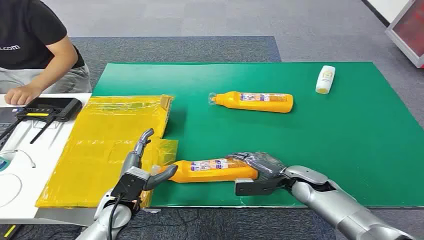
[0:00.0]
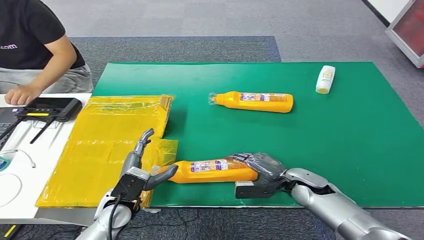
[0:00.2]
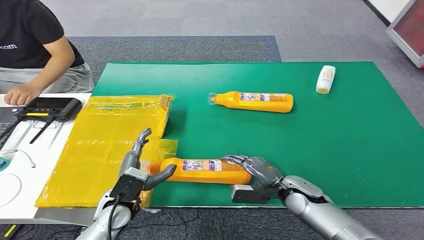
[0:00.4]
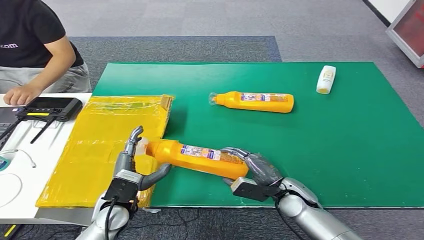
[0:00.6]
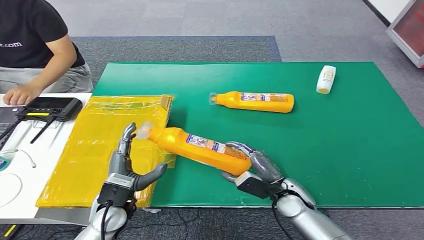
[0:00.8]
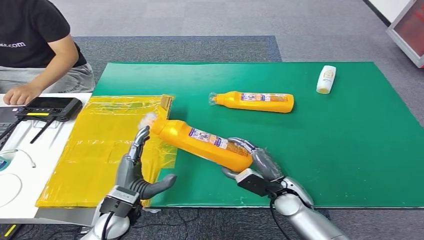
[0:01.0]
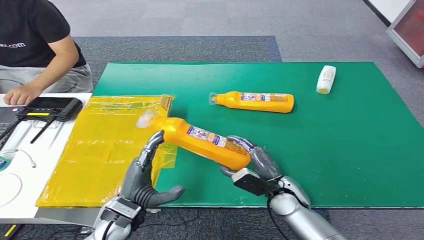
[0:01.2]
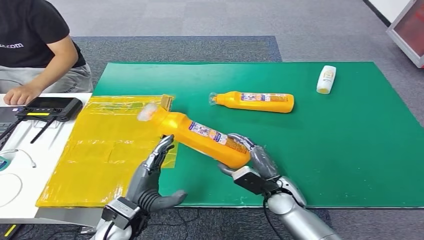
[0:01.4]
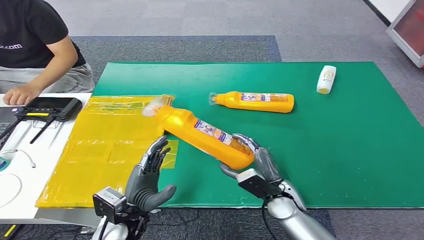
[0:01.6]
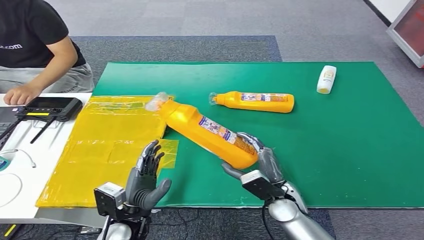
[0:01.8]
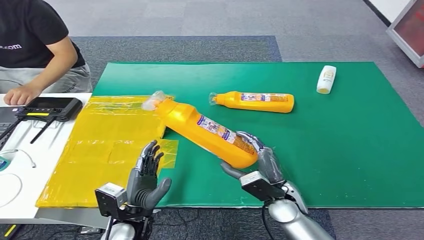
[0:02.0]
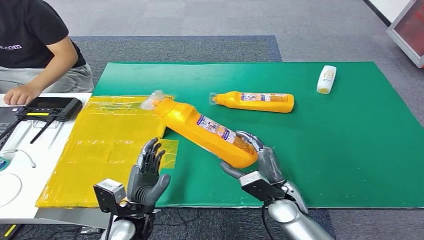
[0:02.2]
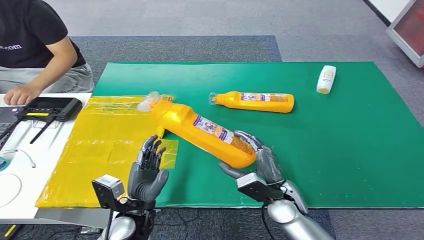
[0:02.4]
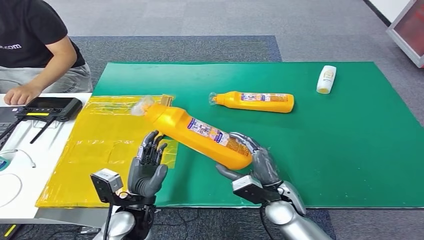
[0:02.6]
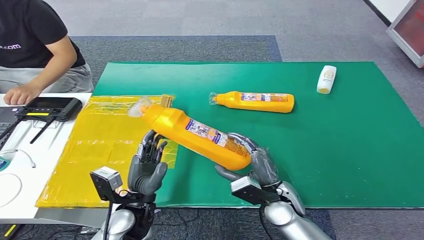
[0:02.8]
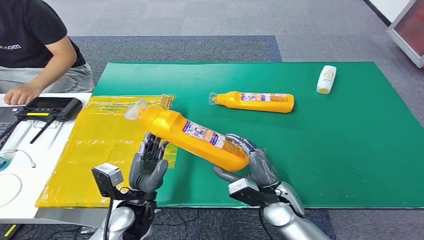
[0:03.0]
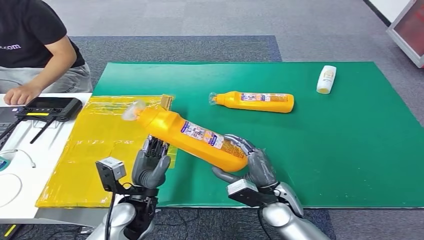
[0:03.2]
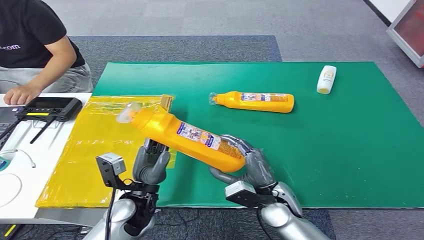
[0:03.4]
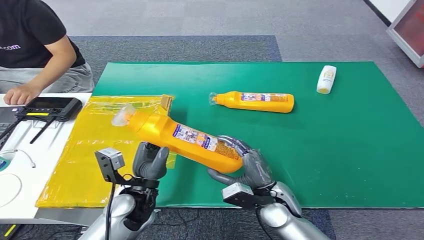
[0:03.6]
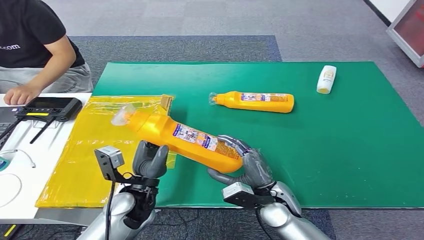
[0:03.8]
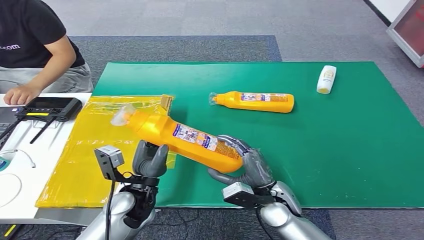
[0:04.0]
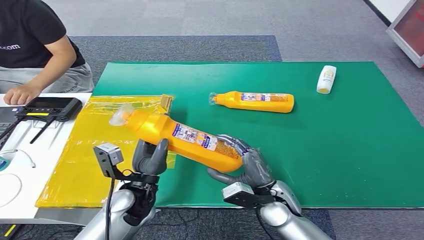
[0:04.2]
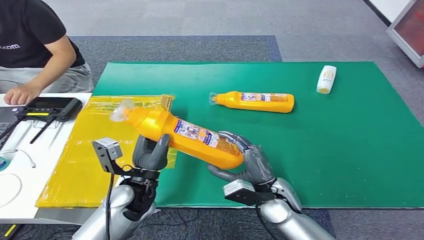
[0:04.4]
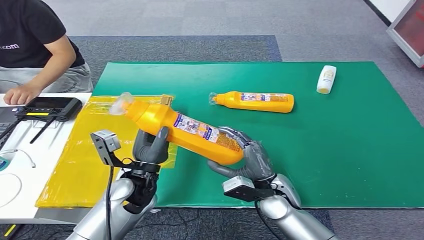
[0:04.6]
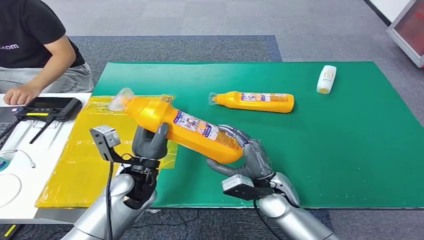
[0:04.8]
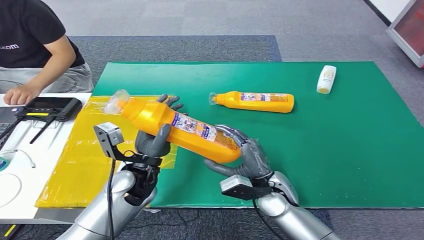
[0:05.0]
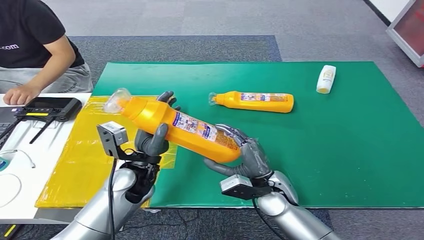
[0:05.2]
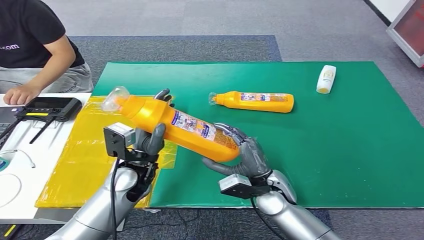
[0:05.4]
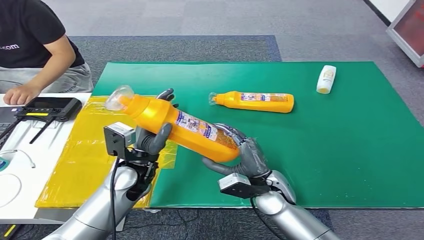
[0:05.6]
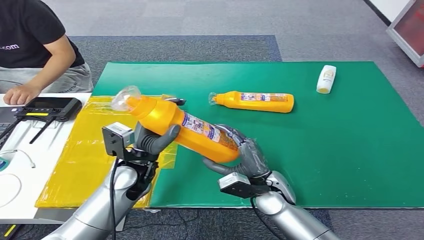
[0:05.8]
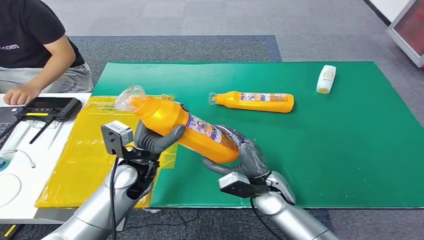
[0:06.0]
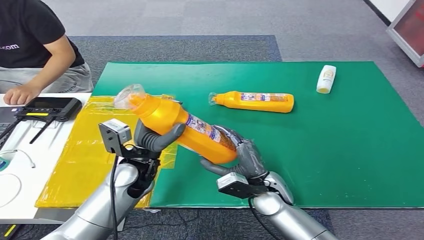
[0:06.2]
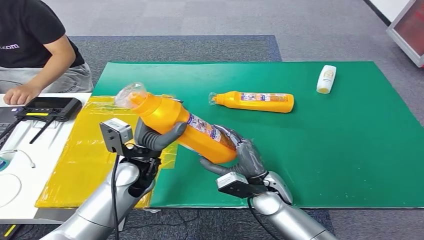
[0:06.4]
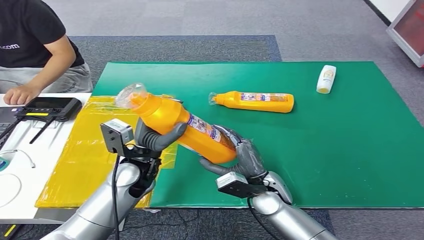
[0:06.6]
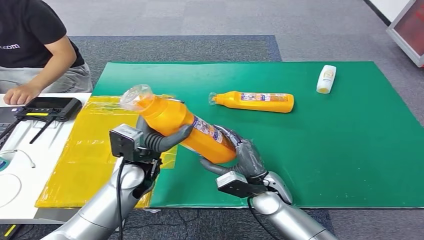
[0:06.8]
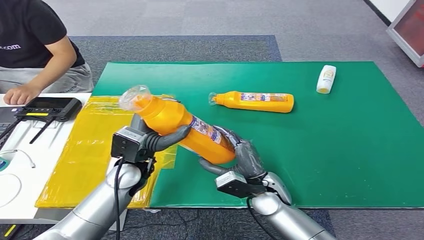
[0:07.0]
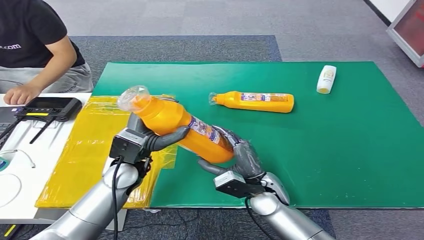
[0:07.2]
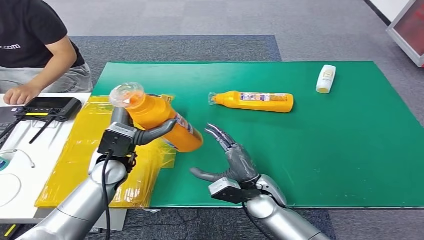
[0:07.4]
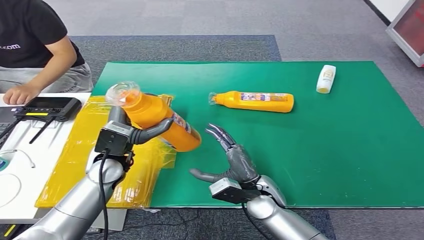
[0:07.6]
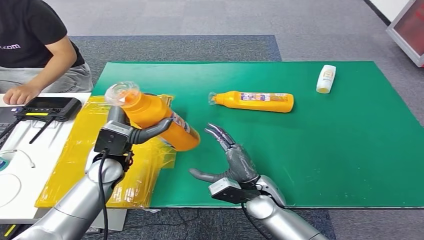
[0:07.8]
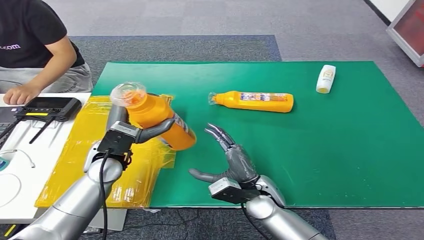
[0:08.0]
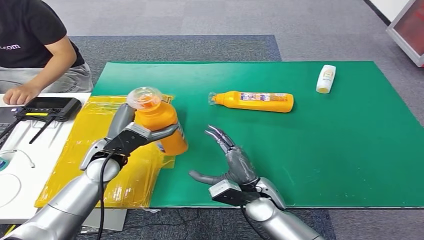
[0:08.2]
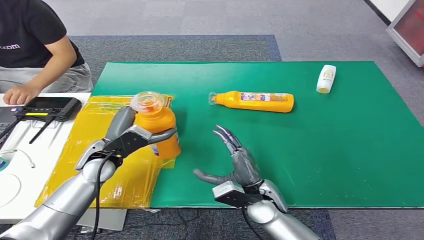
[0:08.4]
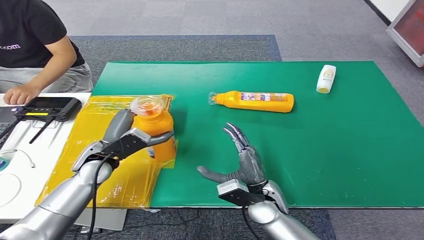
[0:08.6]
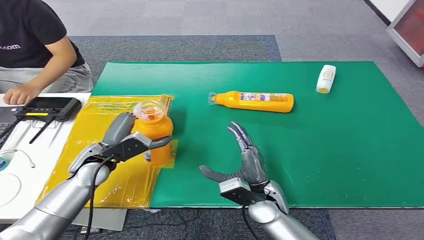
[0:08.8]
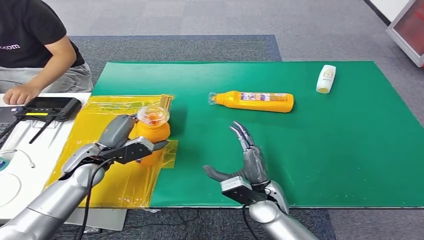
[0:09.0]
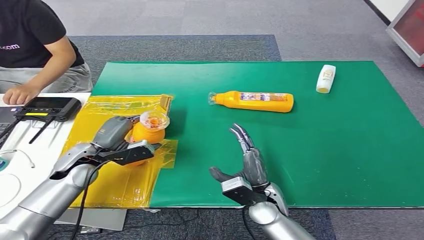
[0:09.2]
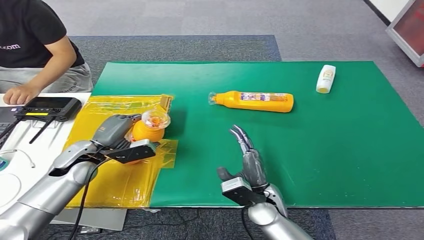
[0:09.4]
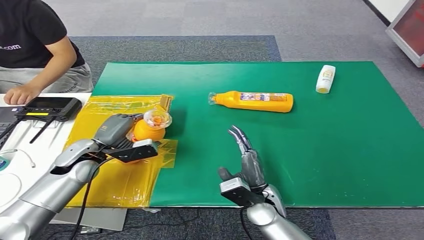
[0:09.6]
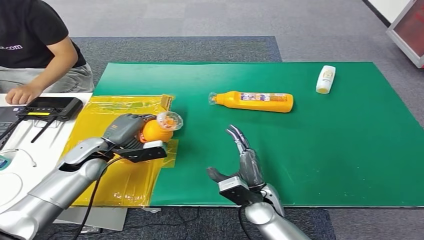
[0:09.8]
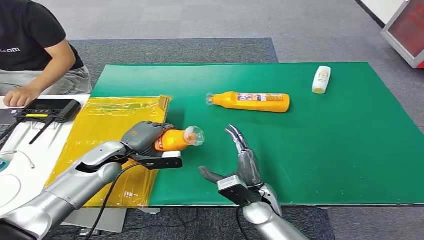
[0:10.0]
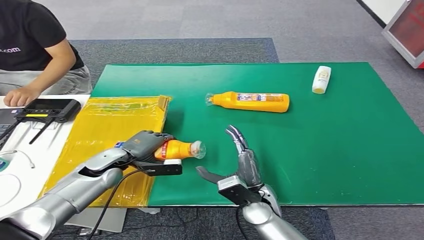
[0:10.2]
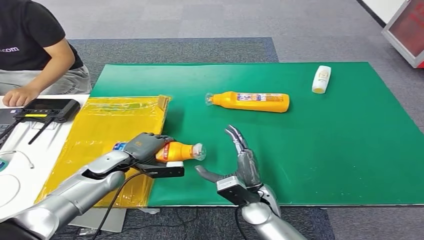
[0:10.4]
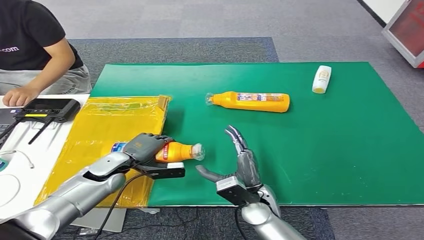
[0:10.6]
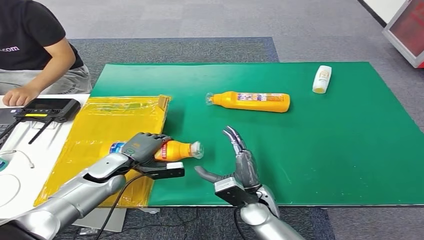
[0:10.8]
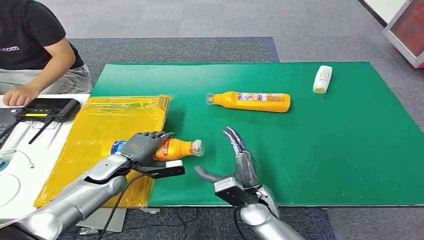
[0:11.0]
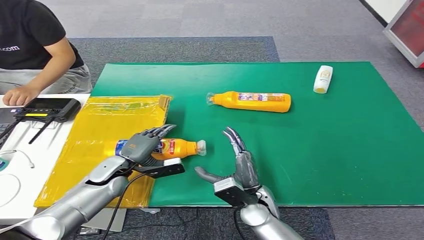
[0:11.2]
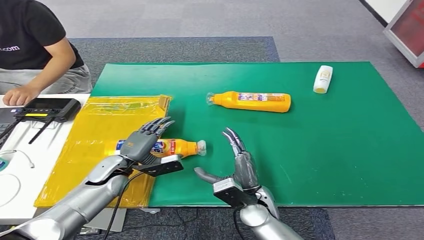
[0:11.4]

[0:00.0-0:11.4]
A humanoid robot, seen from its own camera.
Step, 0:00.0 to 0:01.6: Pick up the bottle from the table.
Step, 0:02.0 to 0:11.4: Turn the bottle to the front side.
0:02.8 to 0:04.2: The hands move only a little.
0:04.2 to 0:05.6: The left hand travels forward by approximately 5 cm.
0:07.2 to 0:08.6: The left hand moves to the left, approximately 5 cm.
0:10.0 to 0:11.4: The left hand moves approximately 5 cm.

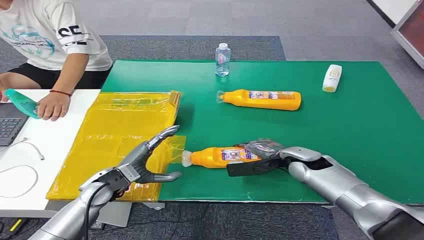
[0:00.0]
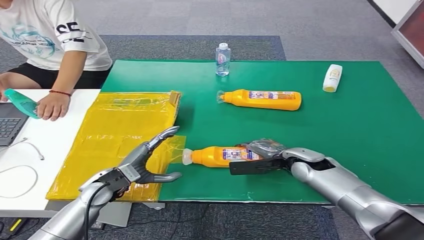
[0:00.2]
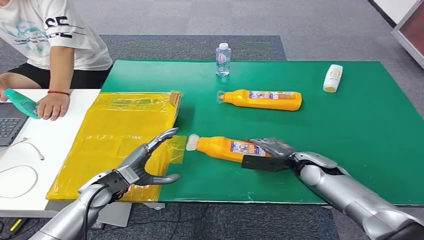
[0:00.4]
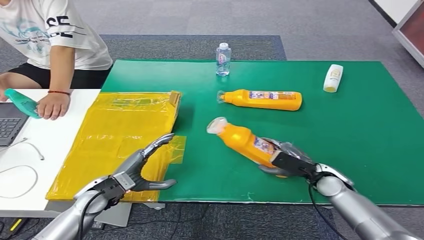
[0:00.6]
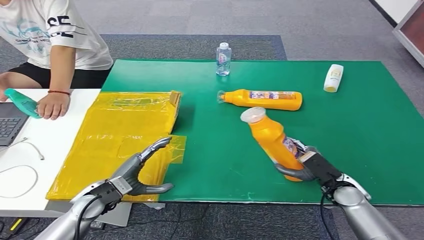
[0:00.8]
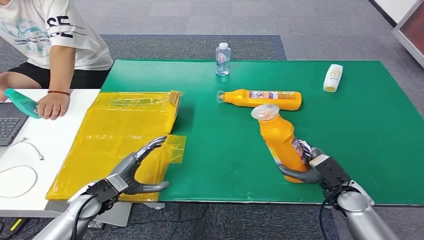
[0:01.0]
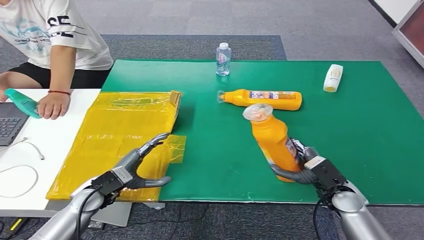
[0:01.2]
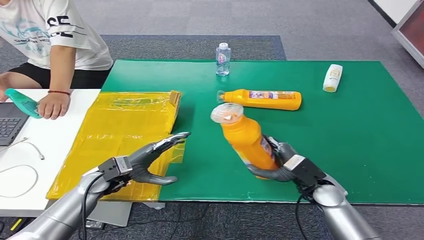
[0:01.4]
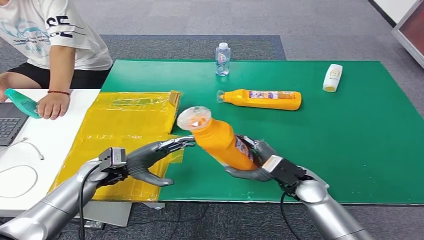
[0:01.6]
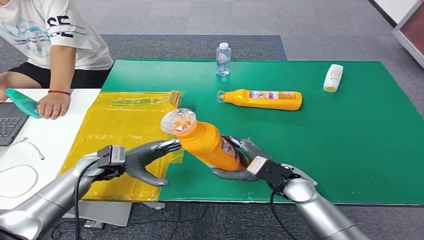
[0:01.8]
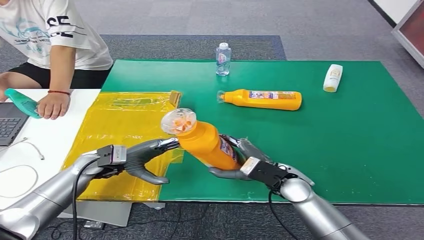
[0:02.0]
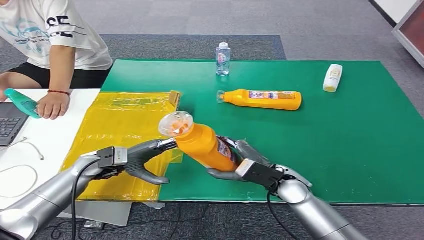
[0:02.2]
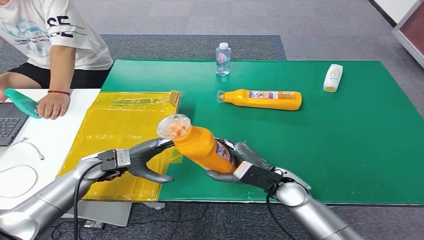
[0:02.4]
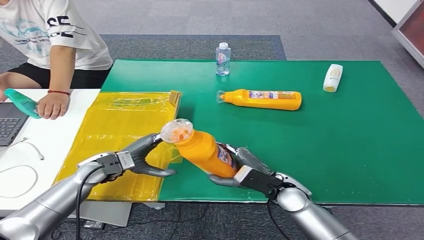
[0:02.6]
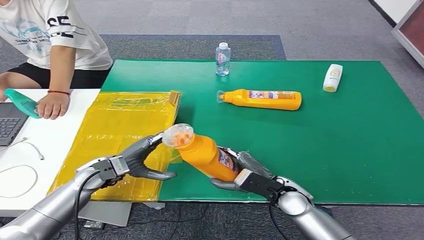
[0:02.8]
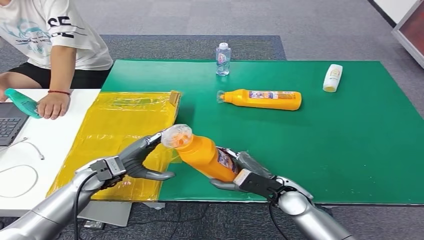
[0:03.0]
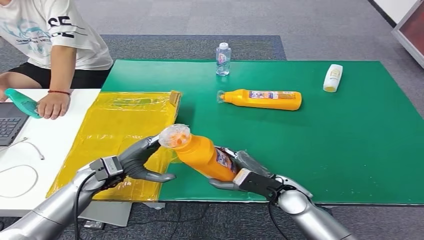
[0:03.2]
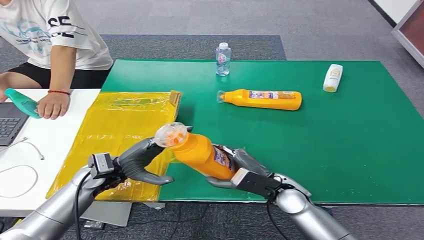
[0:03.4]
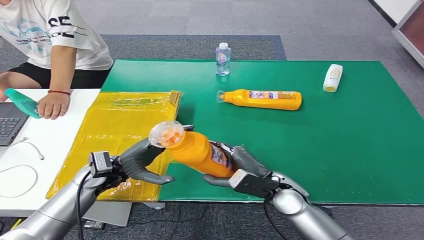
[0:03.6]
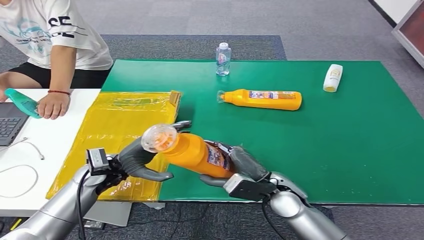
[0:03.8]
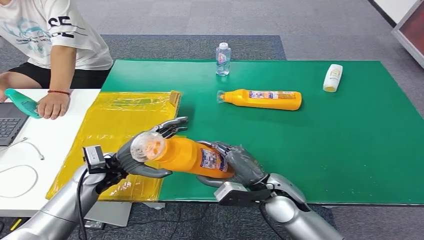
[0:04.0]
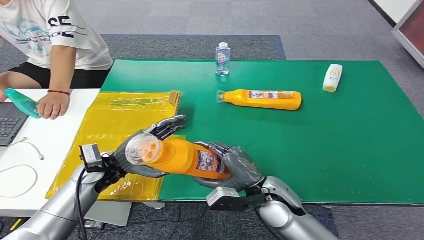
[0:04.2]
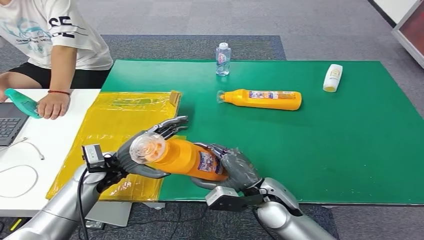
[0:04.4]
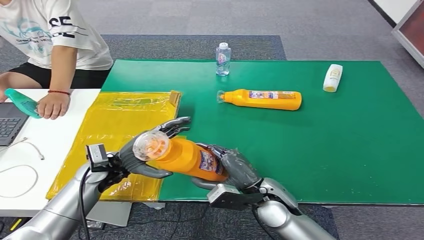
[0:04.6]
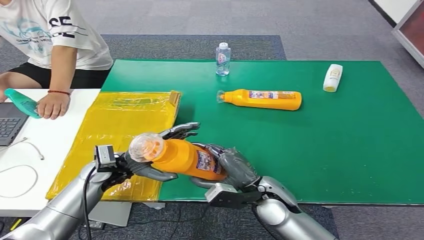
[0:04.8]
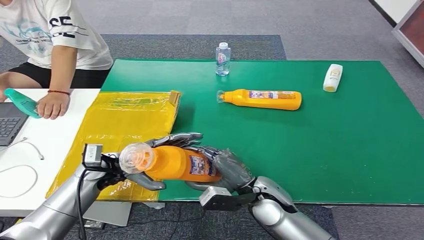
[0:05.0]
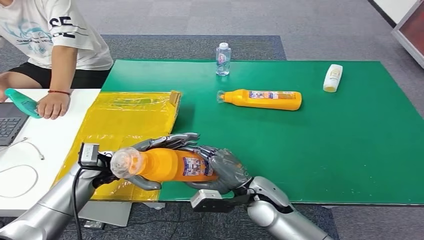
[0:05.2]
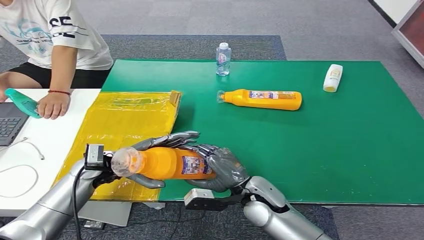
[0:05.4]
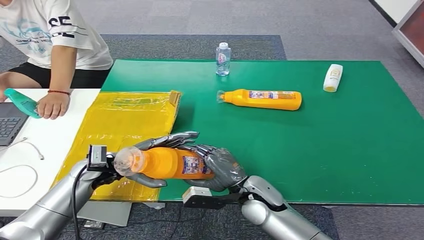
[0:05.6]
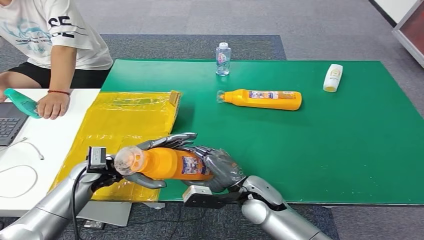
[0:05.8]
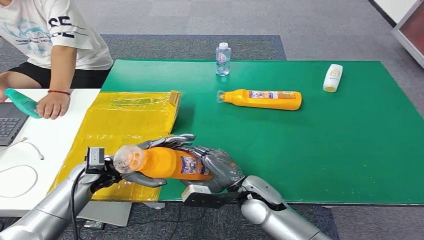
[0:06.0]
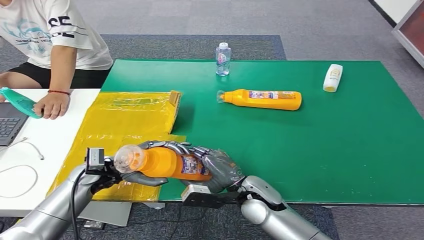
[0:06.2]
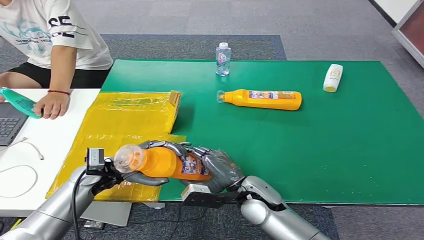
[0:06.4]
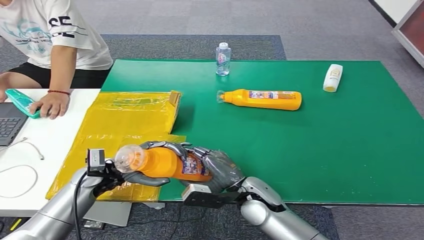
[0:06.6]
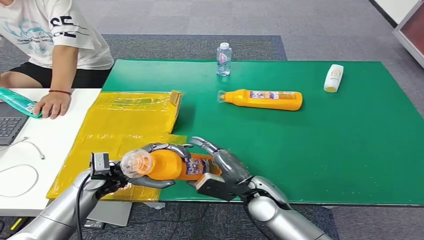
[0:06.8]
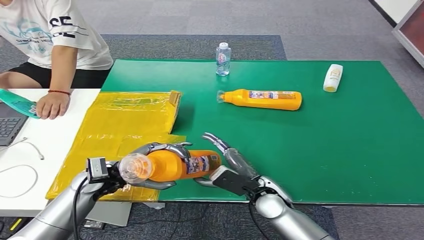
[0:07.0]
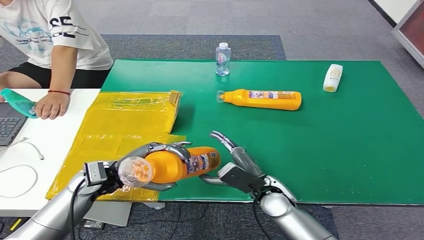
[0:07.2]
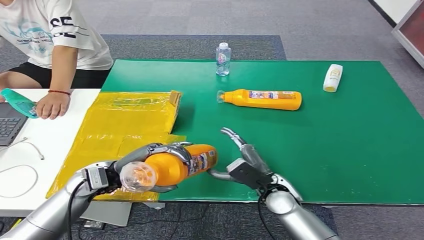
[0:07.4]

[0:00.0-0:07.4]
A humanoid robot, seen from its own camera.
Step, 0:00.0 to 0:03.6: Pick up the bottle from the table.
0:01.4 to 0:03.0: The right hand shifts roughly 5 cm to the left.
0:03.0 to 0:04.4: The right hand ends up about 5 cm from where it was.
0:06.0 to 0:07.4: The right hand moves approximately 5 cm.
